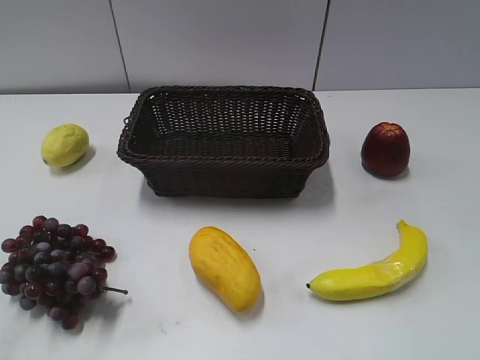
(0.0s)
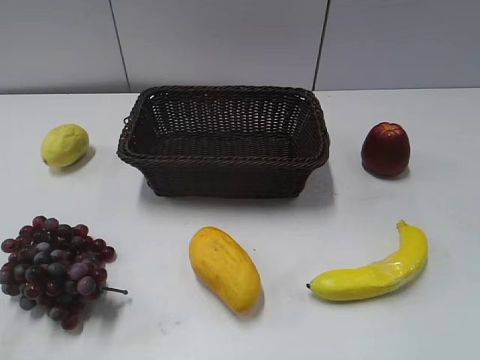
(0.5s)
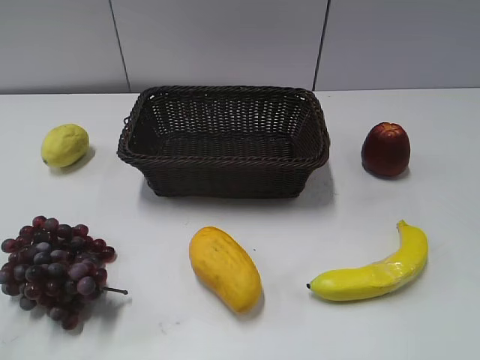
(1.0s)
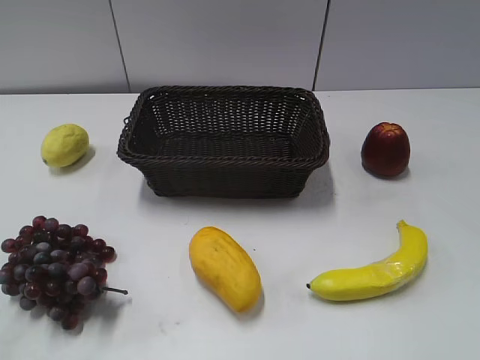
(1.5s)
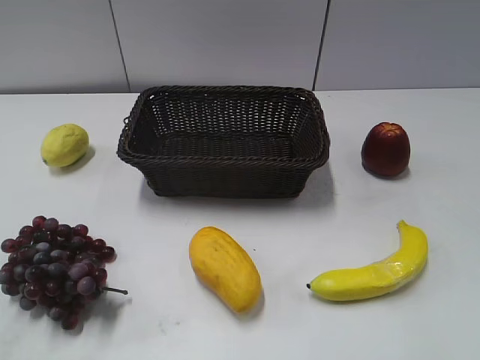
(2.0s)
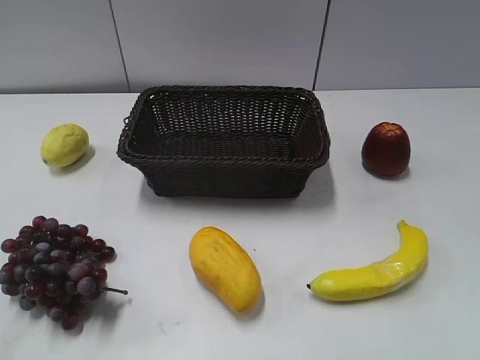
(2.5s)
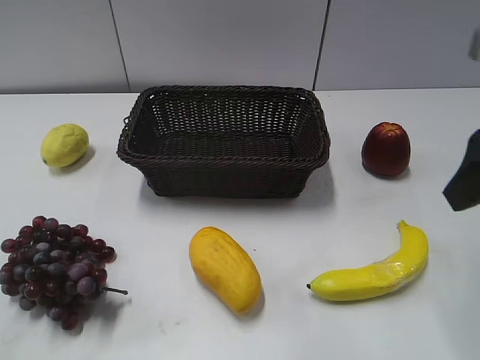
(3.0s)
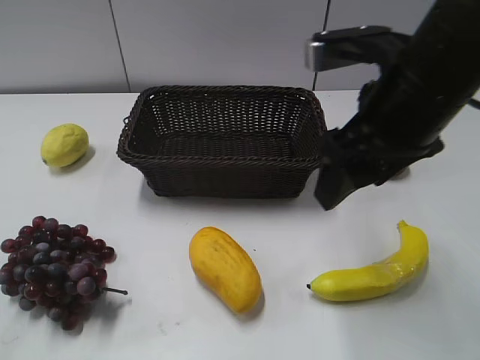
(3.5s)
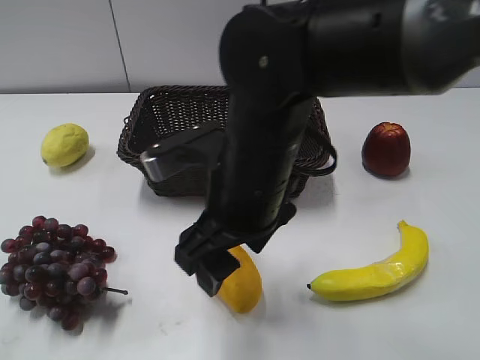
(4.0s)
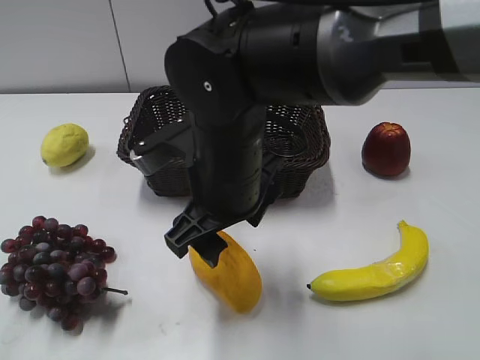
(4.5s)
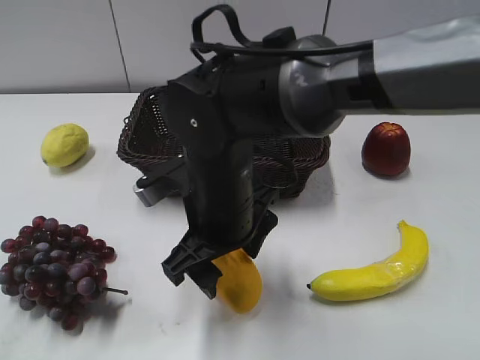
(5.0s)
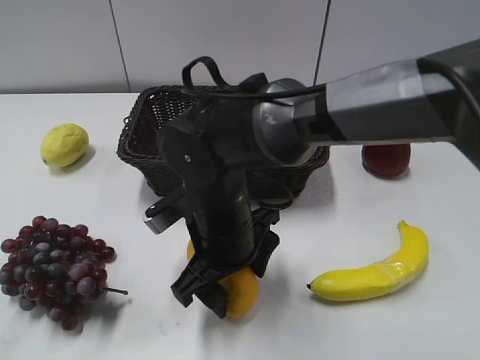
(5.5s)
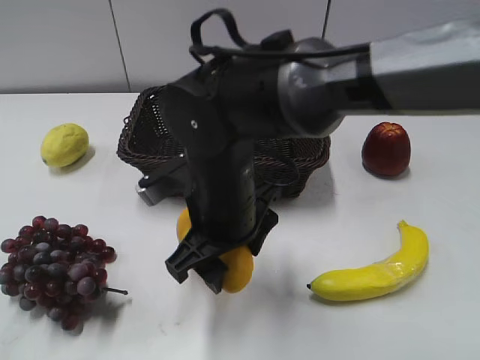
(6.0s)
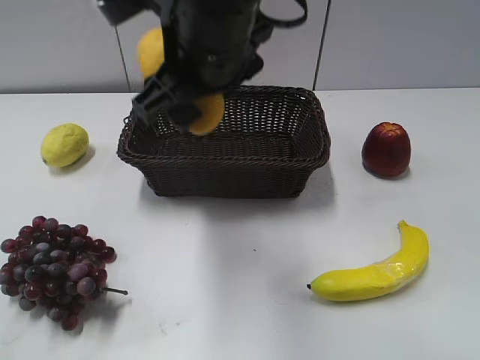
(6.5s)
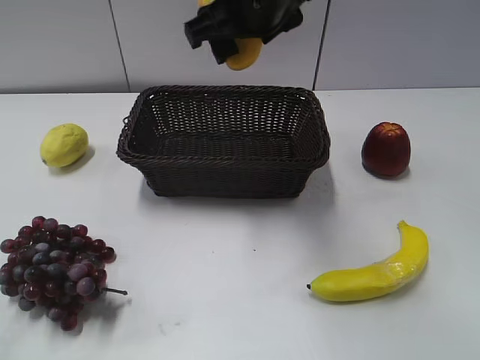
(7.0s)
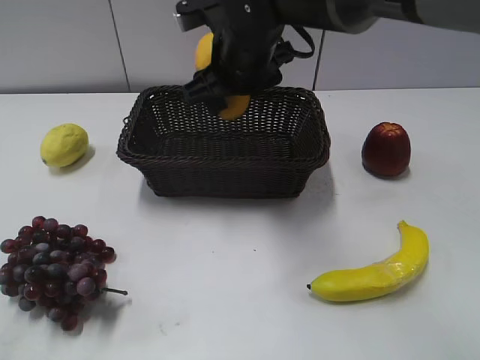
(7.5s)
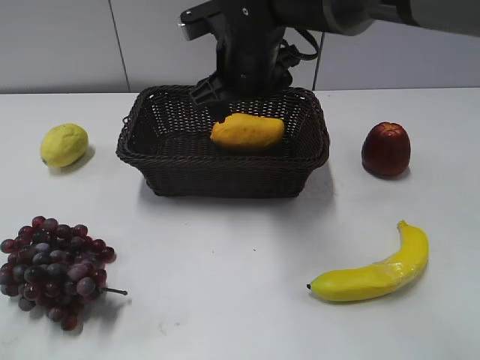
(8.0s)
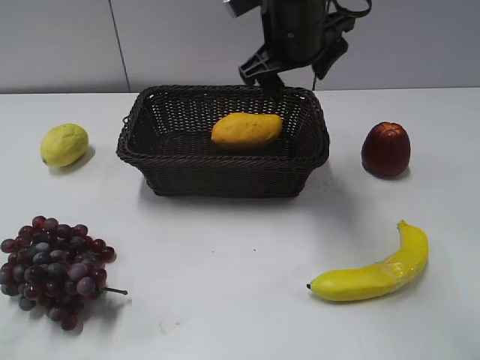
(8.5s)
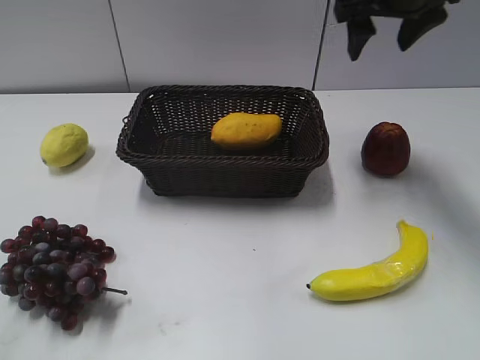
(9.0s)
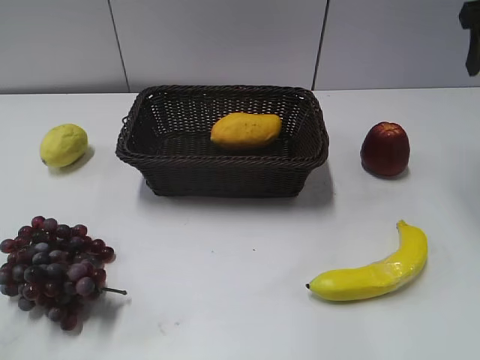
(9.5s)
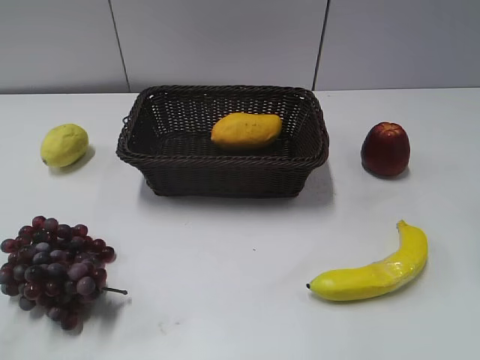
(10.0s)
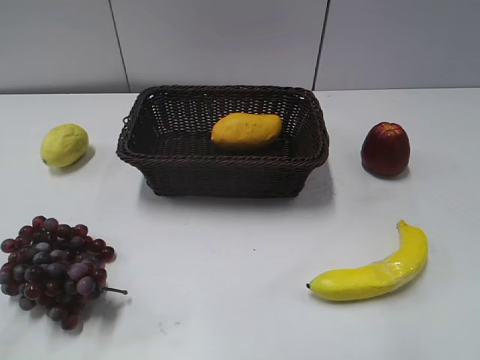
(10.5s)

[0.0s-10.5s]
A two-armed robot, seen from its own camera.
Step, 3.0s to 5.5s: Grasp the mango with right gripper.
Step, 6.0s to 7.5s: Place the mango in the basket with right gripper.
2.0s to 4.0s: The right gripper is displaced to the left, downward and forward by some 35 cm, and opens up.
4.0s to 6.5s: The right gripper is displaced upward and forward by about 10 cm, and closes up.
6.5s to 8.5s: The right gripper shifts some 15 cm forward and to the right, and opens.
8.5s to 10.5s: The right gripper travels backward and to the right by approximately 35 cm.

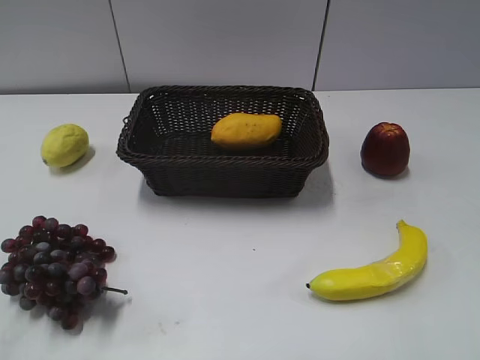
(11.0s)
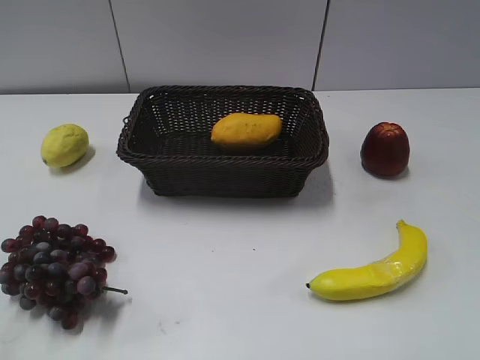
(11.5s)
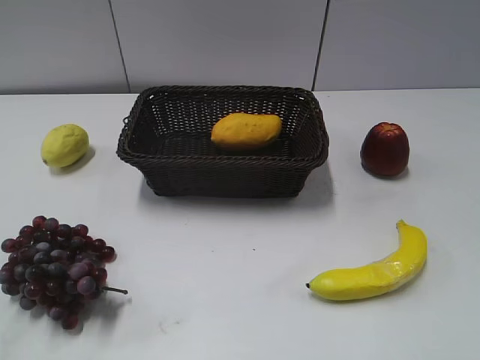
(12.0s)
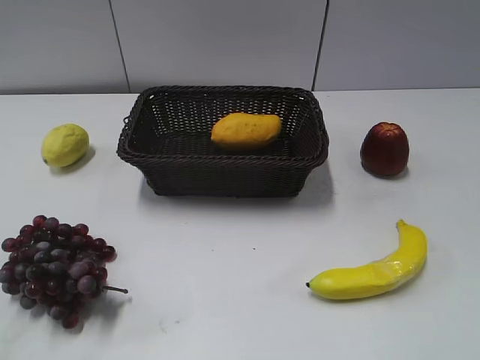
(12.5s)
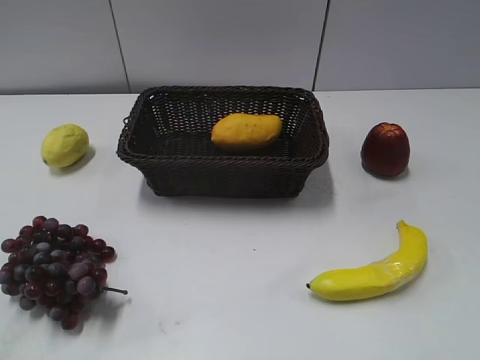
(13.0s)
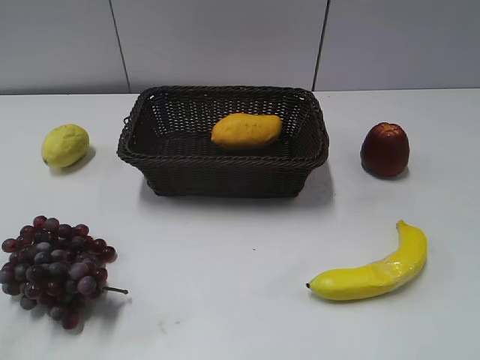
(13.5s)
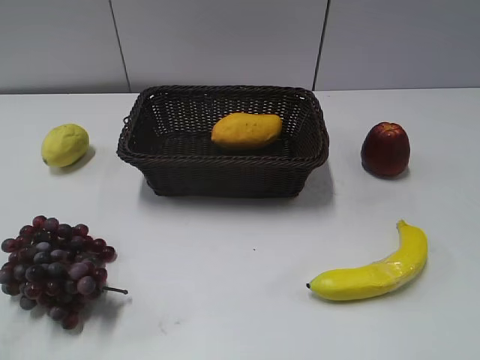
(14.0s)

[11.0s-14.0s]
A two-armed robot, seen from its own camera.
12.5s to 14.0s: Both grippers stay about where they are.

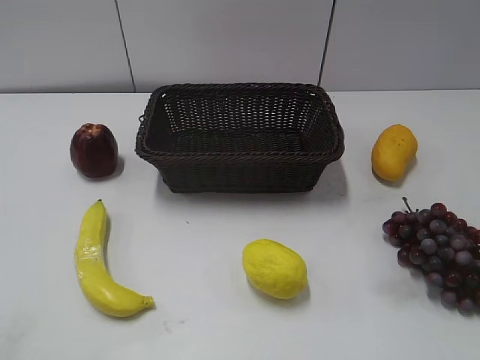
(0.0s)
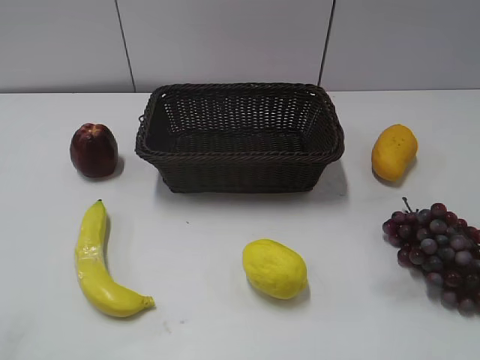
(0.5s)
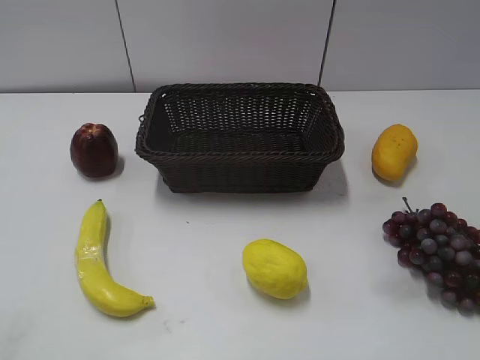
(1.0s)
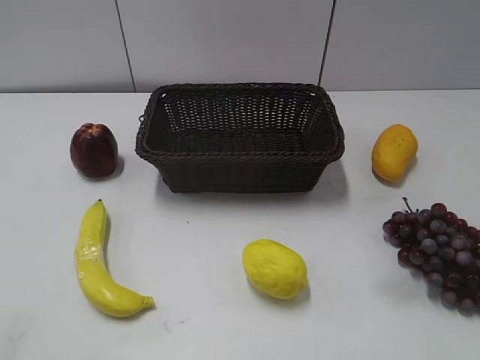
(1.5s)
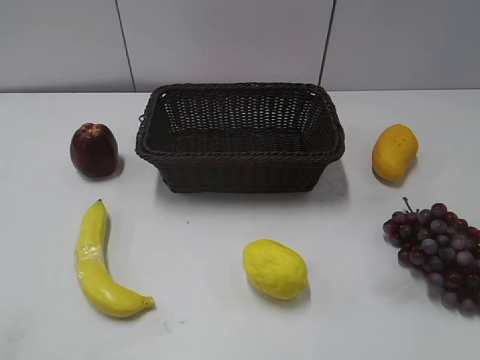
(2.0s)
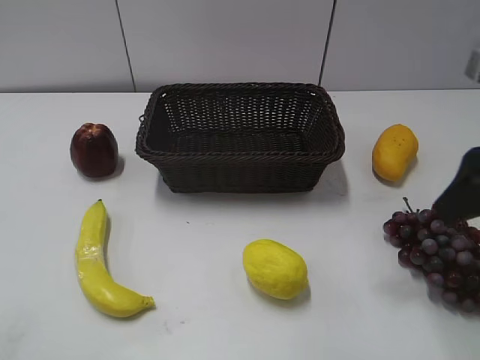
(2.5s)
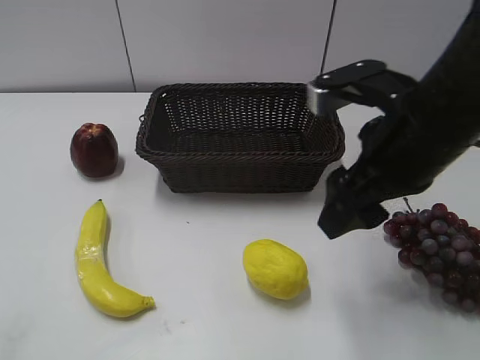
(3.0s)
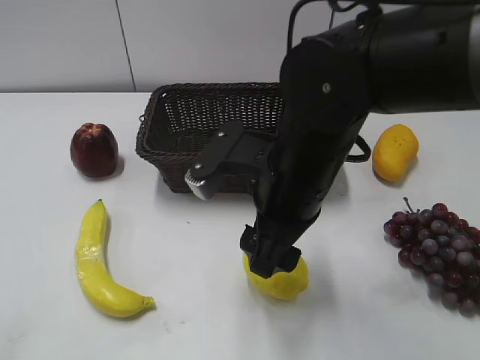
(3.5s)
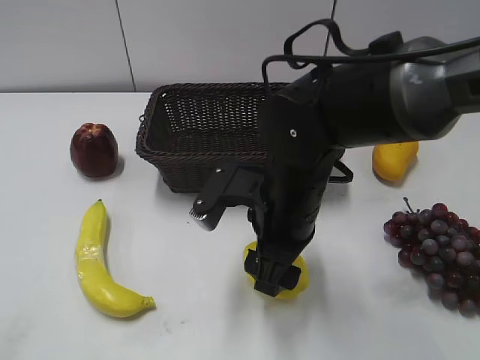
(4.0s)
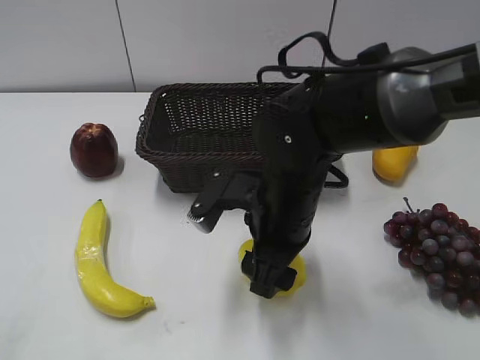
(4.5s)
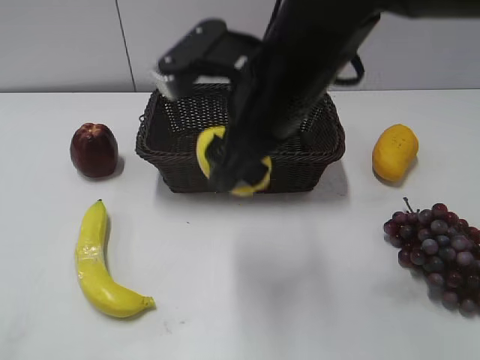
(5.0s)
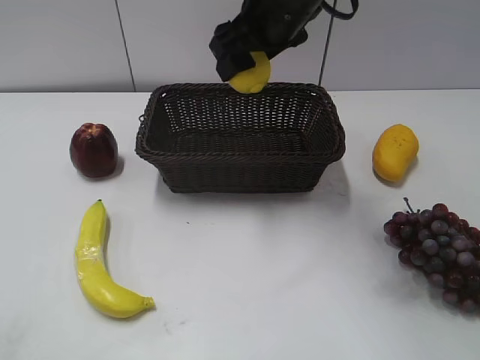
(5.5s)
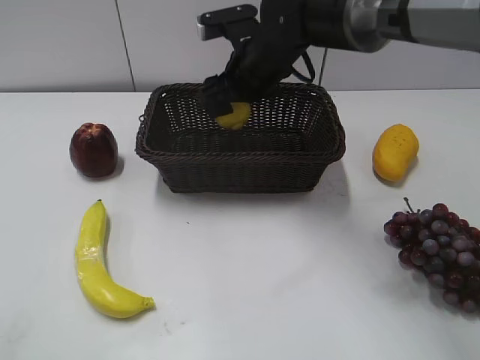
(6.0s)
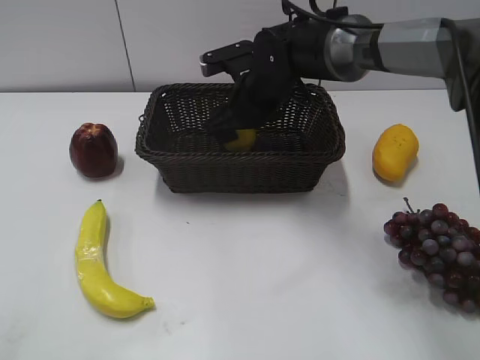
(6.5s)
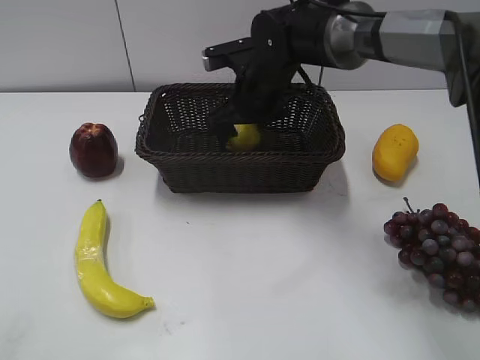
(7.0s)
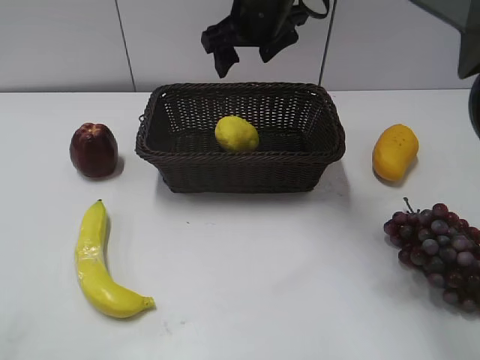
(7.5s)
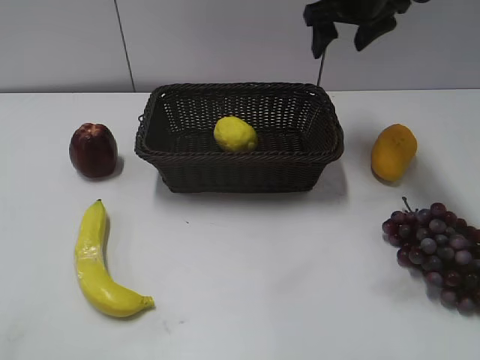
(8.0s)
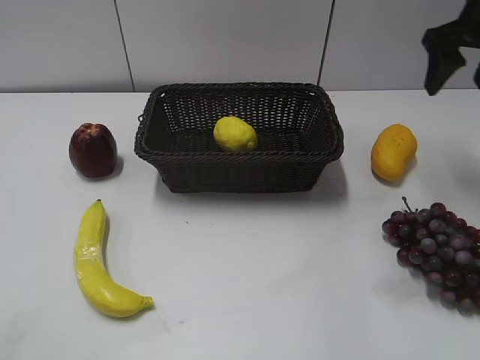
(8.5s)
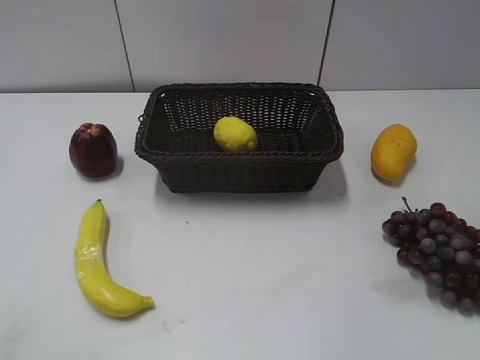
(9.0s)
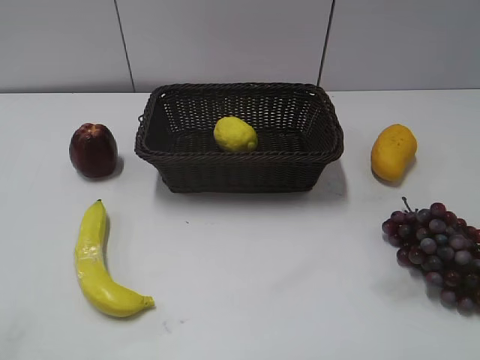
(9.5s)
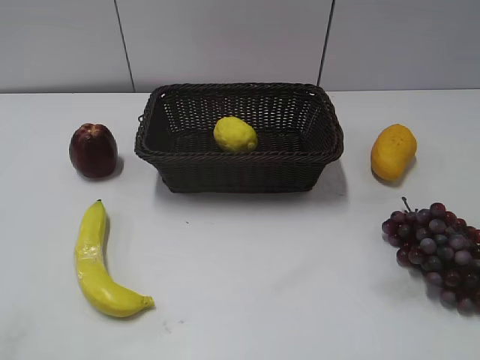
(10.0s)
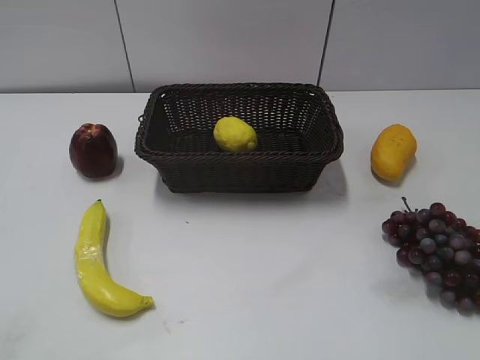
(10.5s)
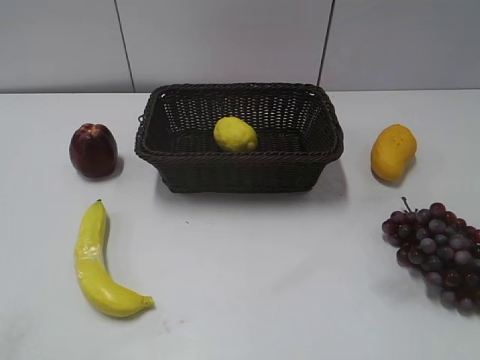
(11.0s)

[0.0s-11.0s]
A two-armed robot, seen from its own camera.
Step, 2.5s to 4.5s: Grasp the lemon with right gripper.
Step, 5.5s to 7.0s: Place the lemon in the basket with right gripper.
2.0s to 3.5s: The right gripper moves to the left, downward and forward, some 30 cm.
3.5s to 5.5s: The right gripper shifts some 15 cm forward and upward; the left gripper closes.
5.5s to 7.5s: The right gripper shifts roughly 5 cm forward, goes downward and returns, roughly 15 cm each way, and opens up.
7.5s to 9.0s: The right gripper travels to the right and backward by about 35 cm, and closes.

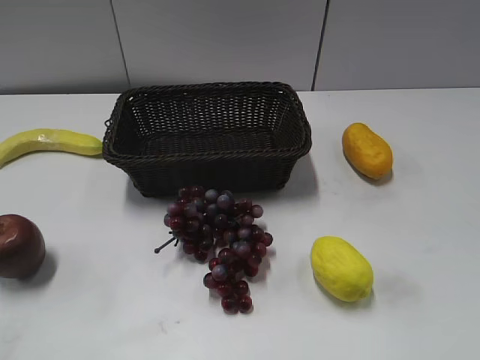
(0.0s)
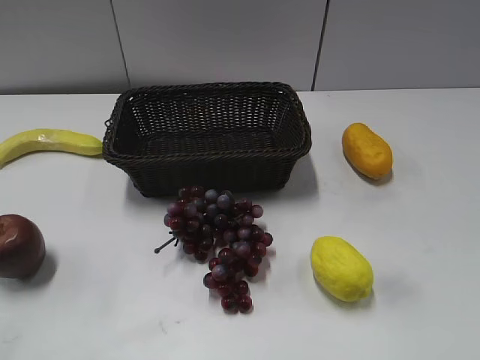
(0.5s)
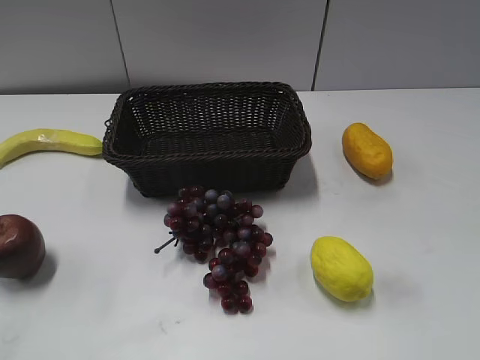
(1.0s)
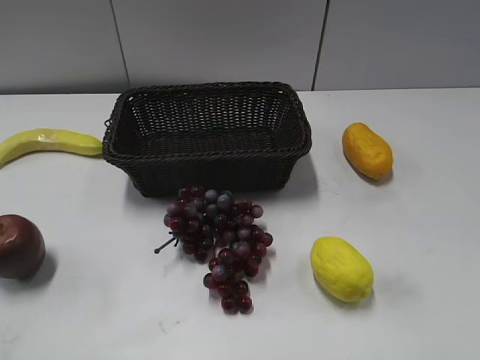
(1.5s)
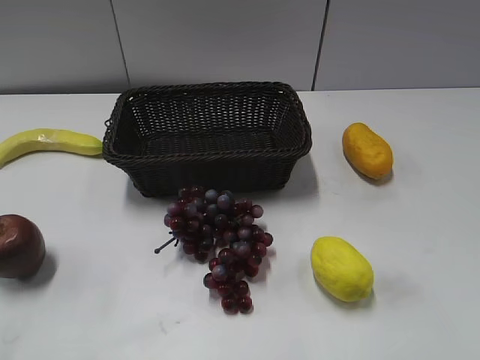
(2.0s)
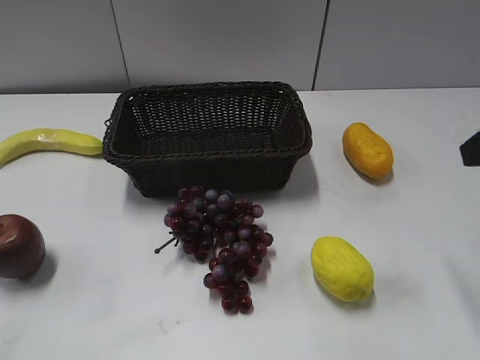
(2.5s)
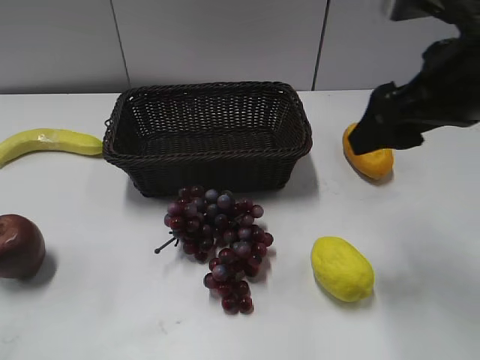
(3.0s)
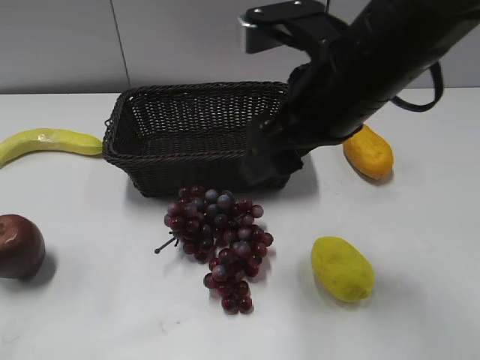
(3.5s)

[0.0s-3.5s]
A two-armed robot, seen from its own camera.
2.0s to 3.5s: The right gripper is displaced to the left and forward by about 25 cm.
